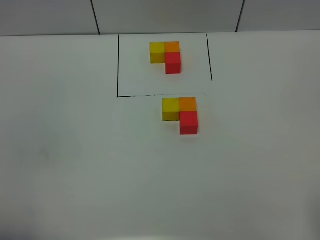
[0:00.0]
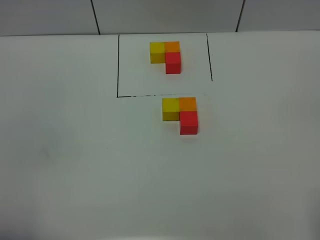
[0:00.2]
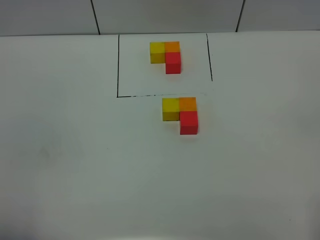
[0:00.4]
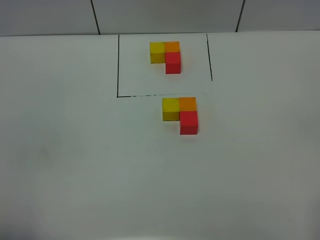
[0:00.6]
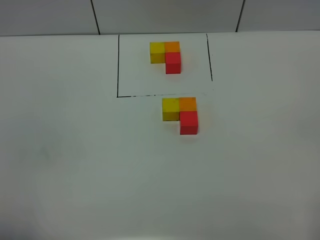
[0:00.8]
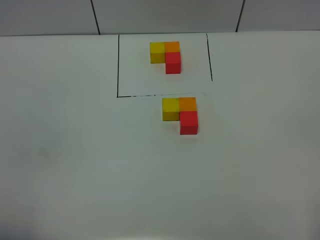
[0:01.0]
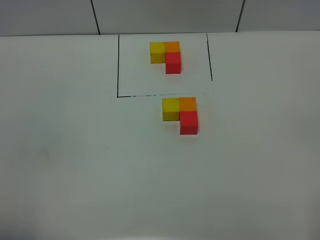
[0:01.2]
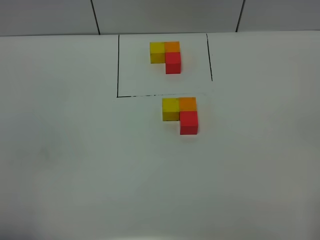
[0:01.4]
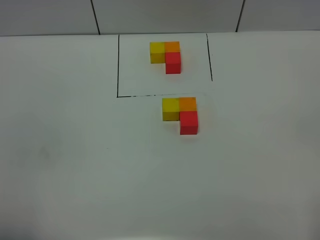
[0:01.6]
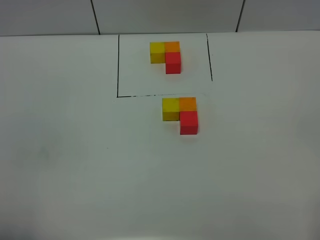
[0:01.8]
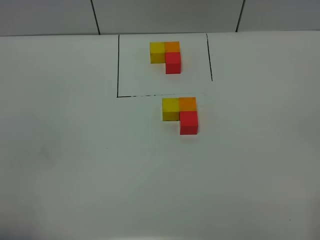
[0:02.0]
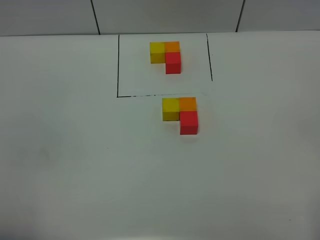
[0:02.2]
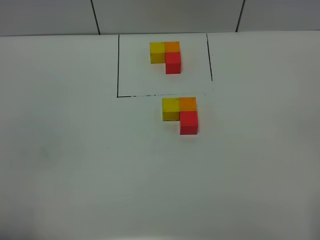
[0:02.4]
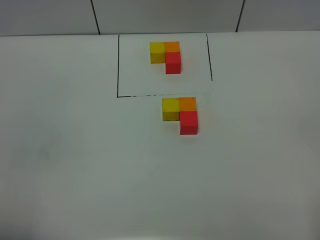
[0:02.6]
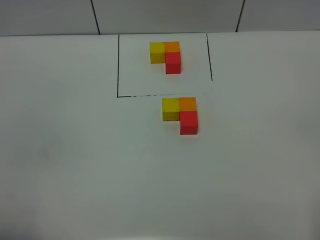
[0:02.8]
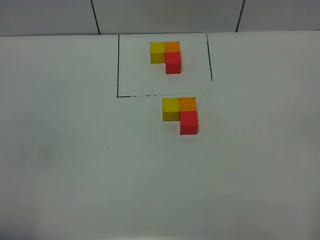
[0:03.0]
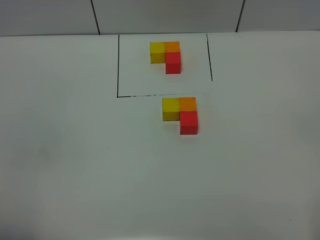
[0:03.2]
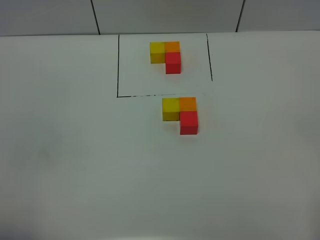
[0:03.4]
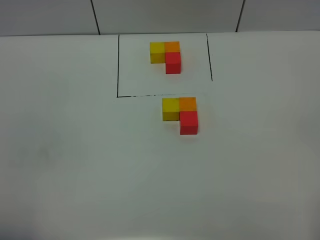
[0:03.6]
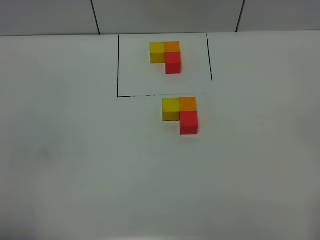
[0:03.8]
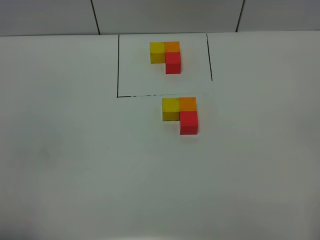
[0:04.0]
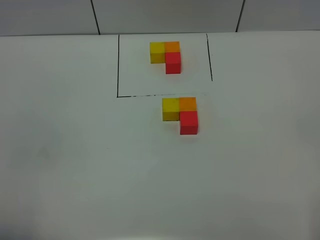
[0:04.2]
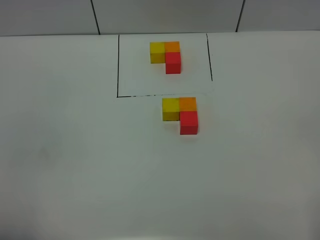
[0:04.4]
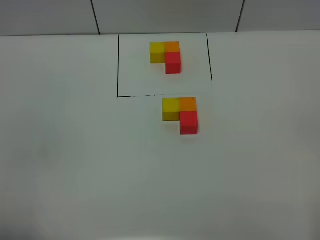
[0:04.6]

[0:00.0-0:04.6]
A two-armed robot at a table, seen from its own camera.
Task of the whole recording: According to the building block template in front, assemble the scattered blocks together.
0:01.6 to 0:04.6: Both grippers stay put.

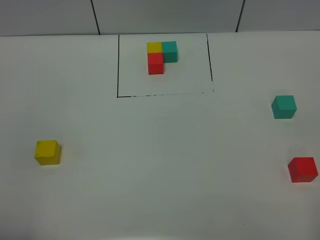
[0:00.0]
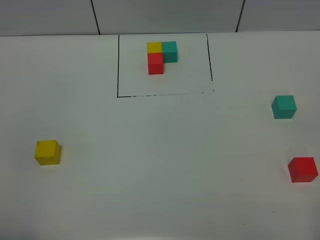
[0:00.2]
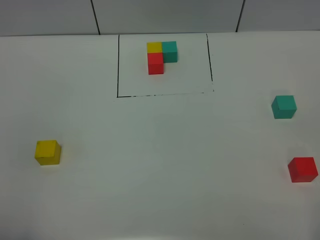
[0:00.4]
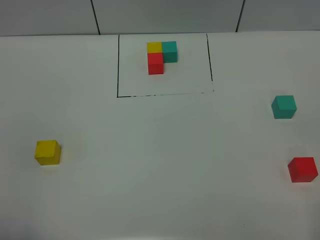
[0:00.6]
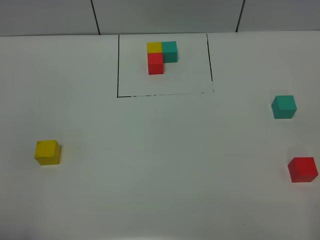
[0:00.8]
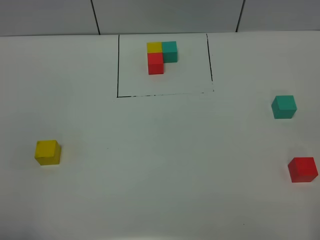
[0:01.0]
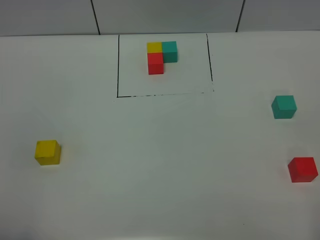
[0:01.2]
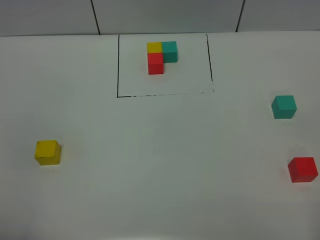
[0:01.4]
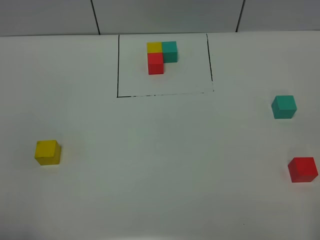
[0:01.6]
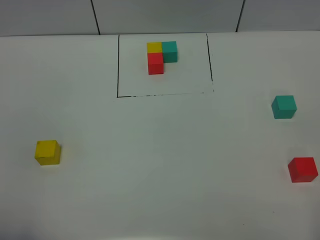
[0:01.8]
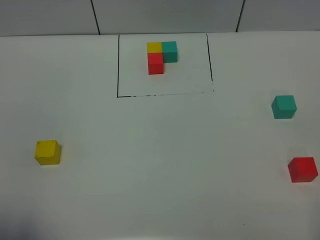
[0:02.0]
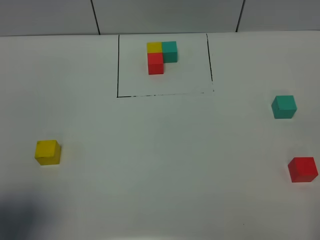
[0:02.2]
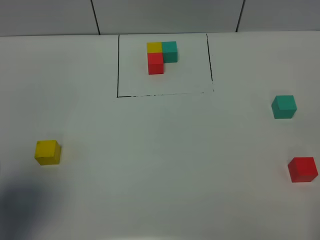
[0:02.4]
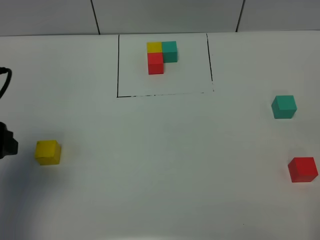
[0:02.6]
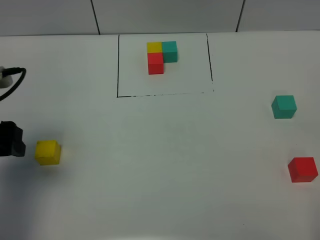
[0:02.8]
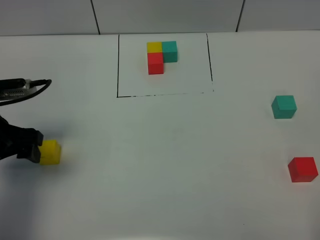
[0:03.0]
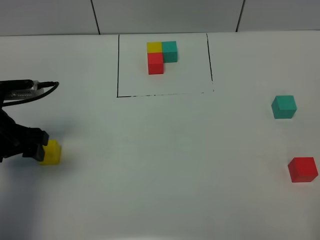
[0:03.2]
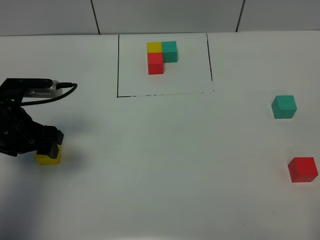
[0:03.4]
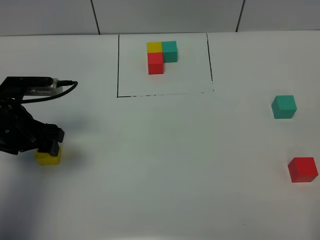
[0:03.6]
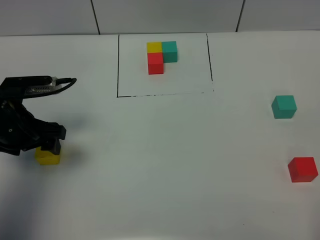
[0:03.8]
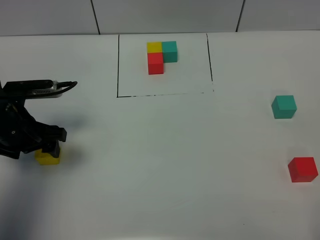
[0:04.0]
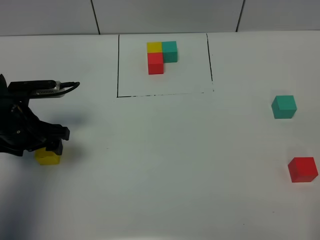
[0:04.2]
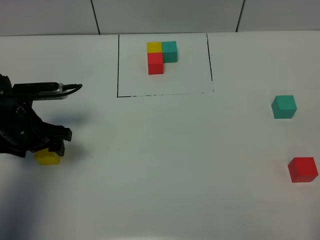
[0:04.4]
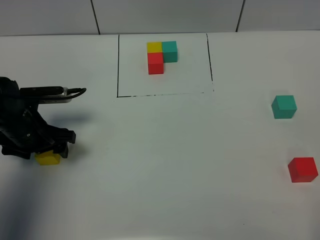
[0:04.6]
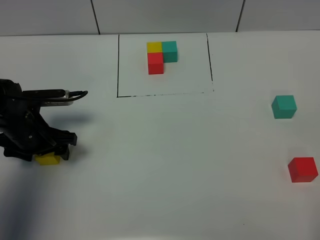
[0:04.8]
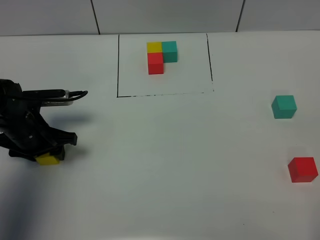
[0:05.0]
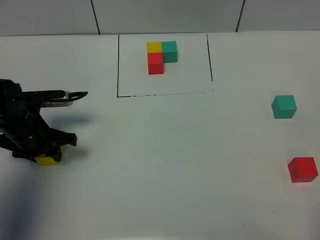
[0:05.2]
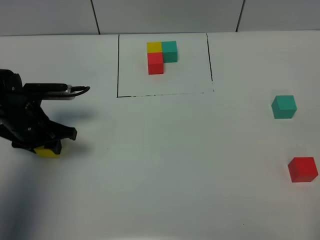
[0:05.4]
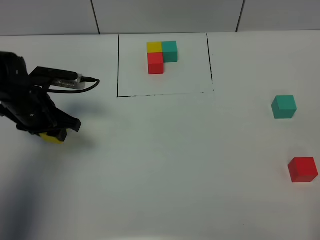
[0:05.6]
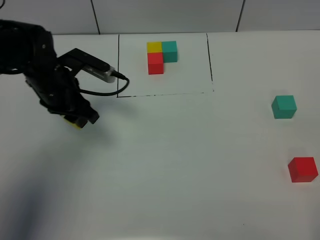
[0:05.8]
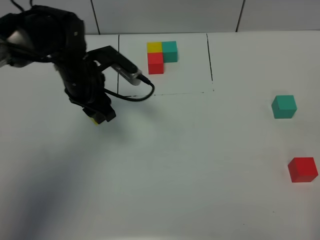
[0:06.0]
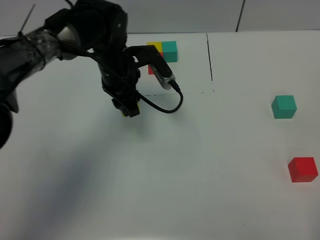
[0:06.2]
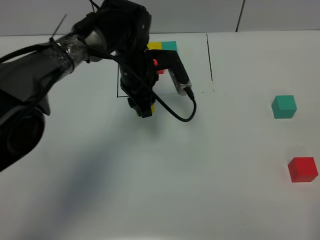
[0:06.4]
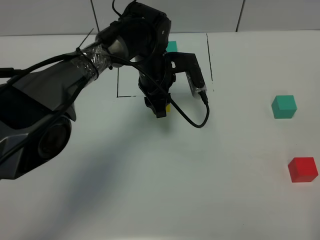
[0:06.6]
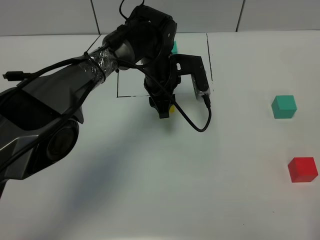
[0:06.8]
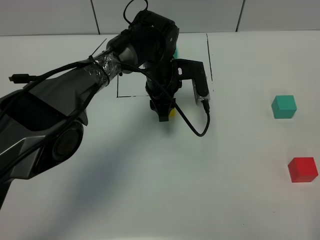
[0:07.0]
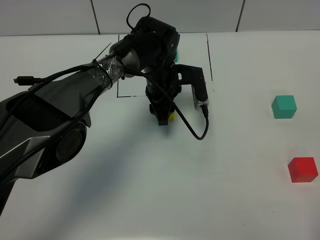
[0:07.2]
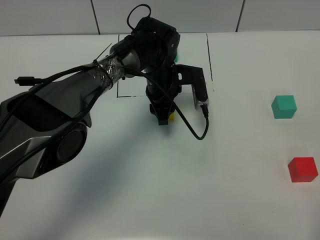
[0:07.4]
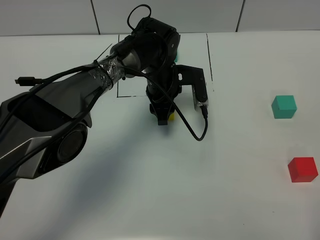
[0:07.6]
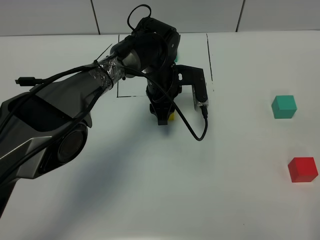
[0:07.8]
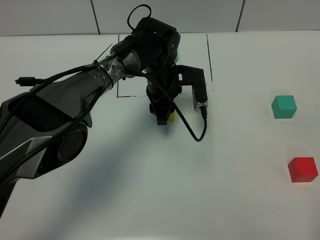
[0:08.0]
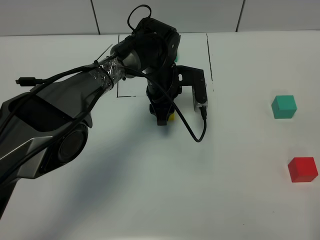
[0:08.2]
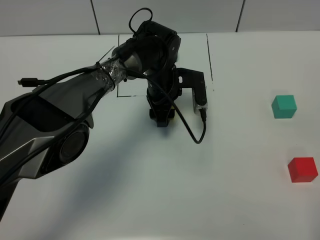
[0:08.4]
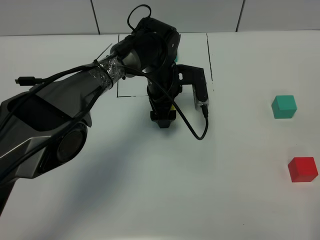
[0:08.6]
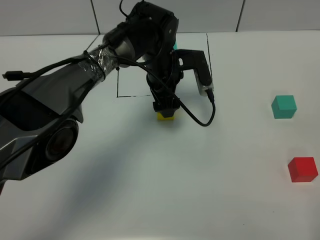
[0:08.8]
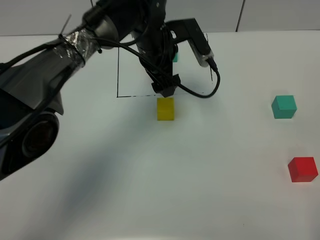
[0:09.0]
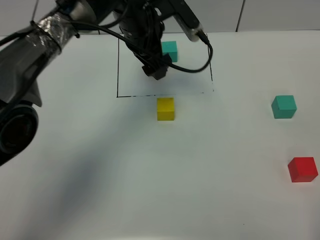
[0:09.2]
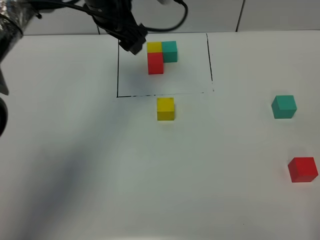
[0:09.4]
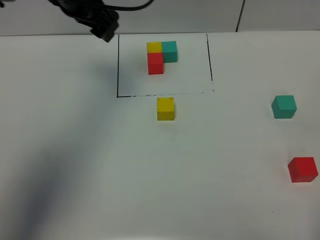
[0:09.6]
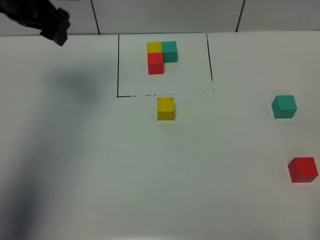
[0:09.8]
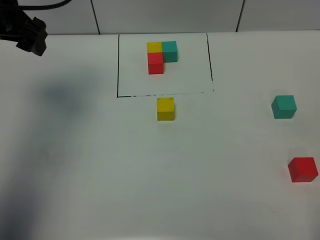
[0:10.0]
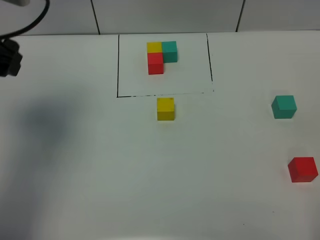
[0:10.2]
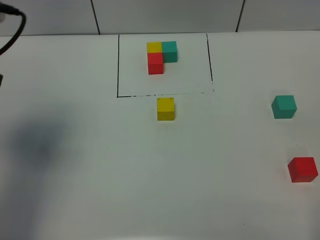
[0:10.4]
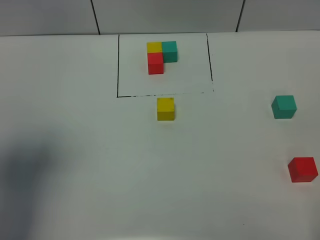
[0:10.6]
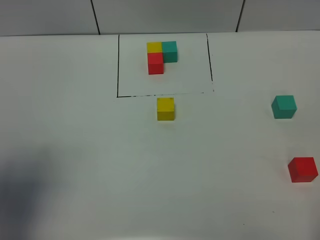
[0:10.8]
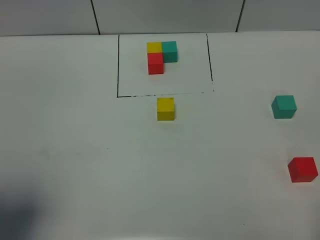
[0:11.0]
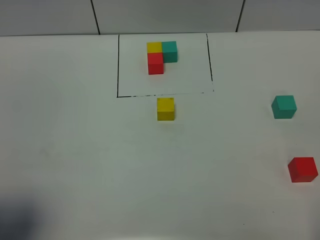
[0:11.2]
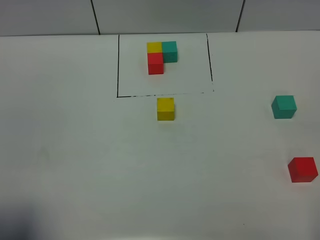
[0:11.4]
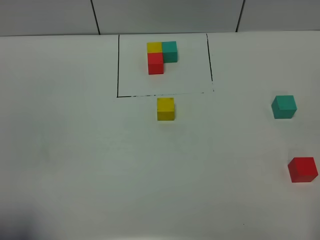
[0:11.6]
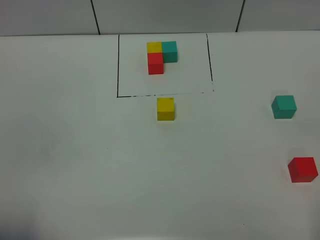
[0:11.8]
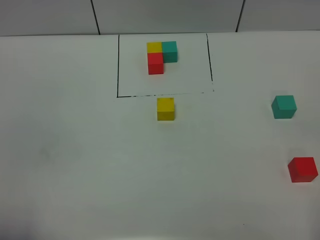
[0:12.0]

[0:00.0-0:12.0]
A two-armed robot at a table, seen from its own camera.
Task of the whole recording: According to the building block template in front, assemble the scattered blocks together.
Step, 0:00.0 to 0:08.2: Put the yellow build block in the center of the table.
0:00.0 to 0:01.6: Both grippers stay put.
0:01.6 to 0:03.0: The left gripper travels forward by about 25 cm.
0:03.0 to 0:04.4: The left gripper travels downward by roughly 5 cm.
0:04.4 to 0:06.0: The left gripper heads to the right and forward, covering approximately 15 cm, and closes its fingers.
0:06.0 to 0:07.6: The left gripper travels to the right and downward by some 15 cm.
0:07.6 to 0:09.0: The left gripper heads upward, covering roughly 10 cm, and opens its fingers.
0:09.0 to 0:10.4: The left gripper moves to the left, backward and upward, approximately 35 cm.
0:10.4 to 0:12.0: The left gripper goes roughly 25 cm backward.

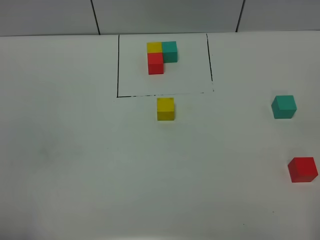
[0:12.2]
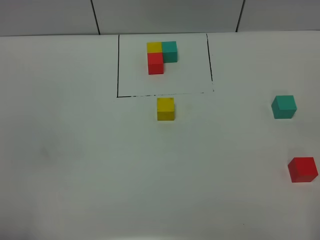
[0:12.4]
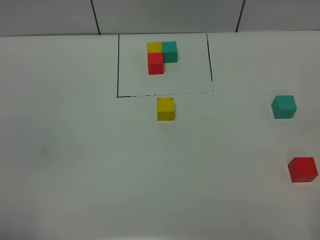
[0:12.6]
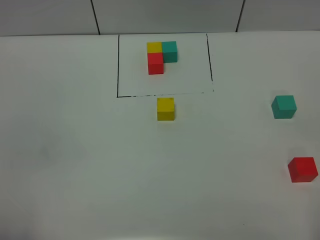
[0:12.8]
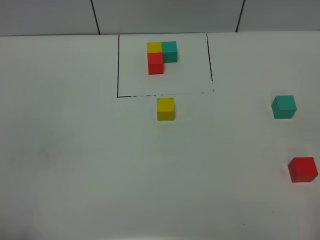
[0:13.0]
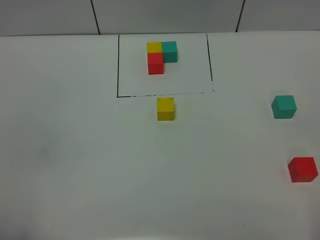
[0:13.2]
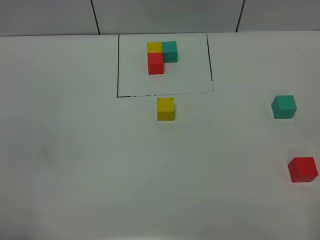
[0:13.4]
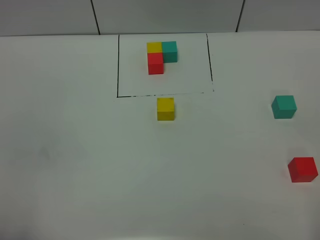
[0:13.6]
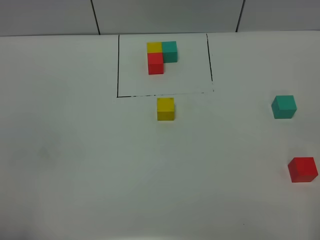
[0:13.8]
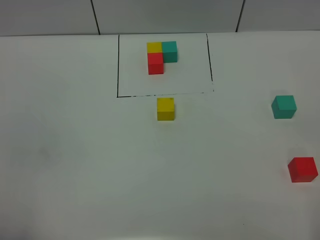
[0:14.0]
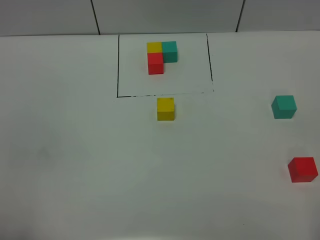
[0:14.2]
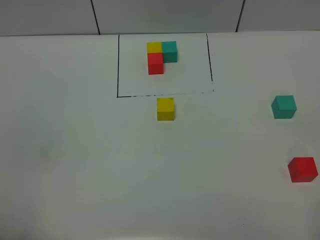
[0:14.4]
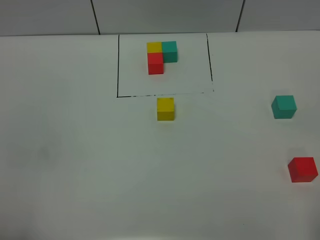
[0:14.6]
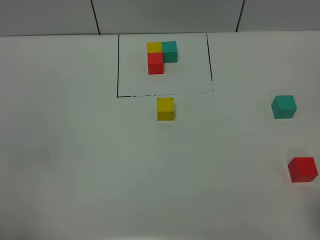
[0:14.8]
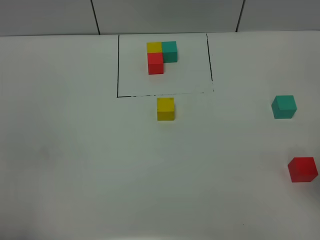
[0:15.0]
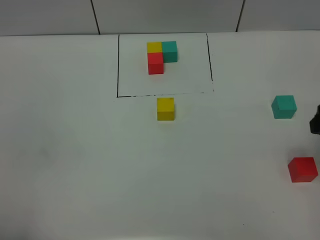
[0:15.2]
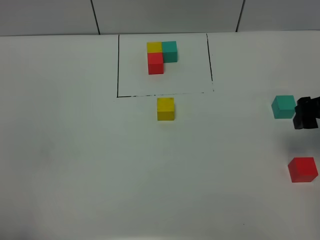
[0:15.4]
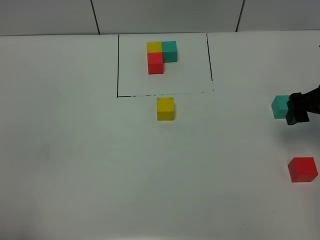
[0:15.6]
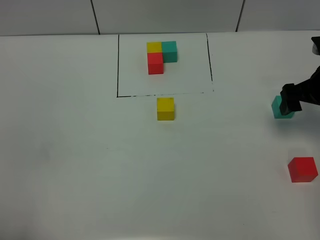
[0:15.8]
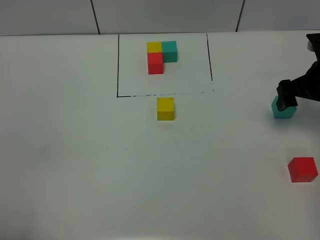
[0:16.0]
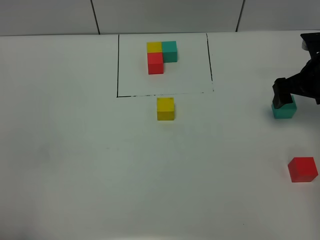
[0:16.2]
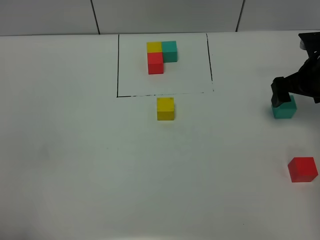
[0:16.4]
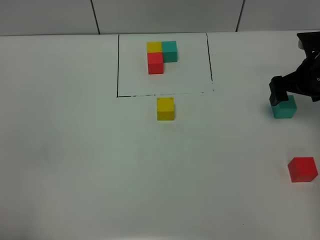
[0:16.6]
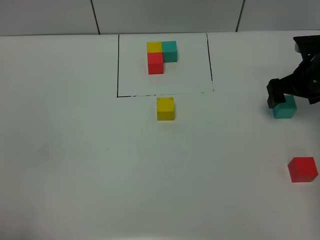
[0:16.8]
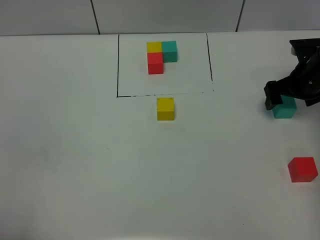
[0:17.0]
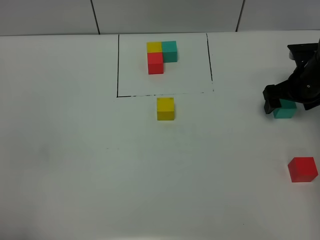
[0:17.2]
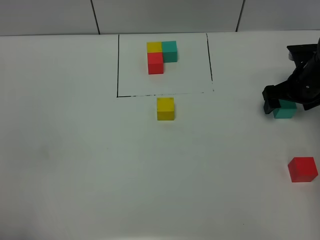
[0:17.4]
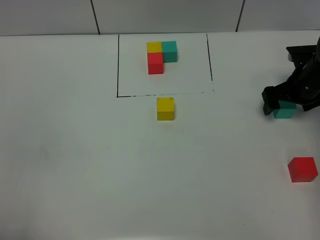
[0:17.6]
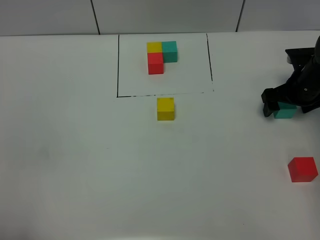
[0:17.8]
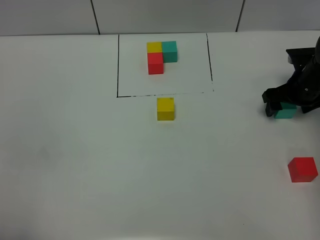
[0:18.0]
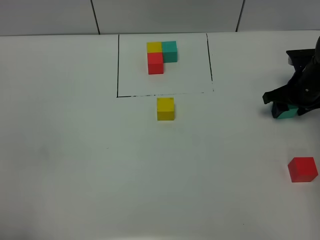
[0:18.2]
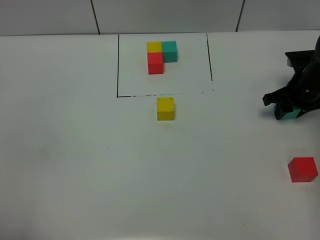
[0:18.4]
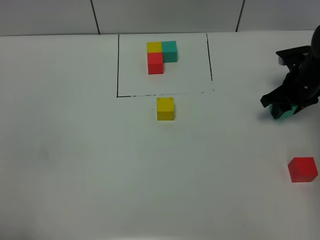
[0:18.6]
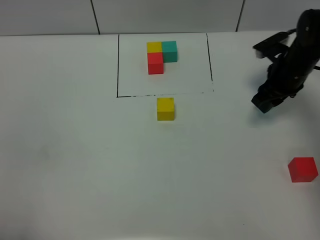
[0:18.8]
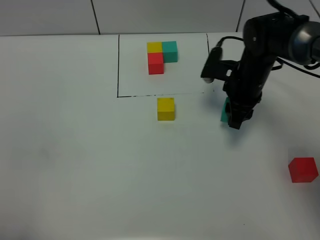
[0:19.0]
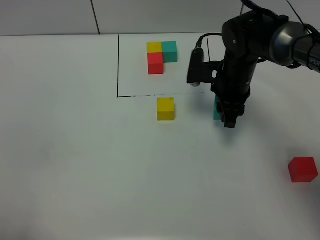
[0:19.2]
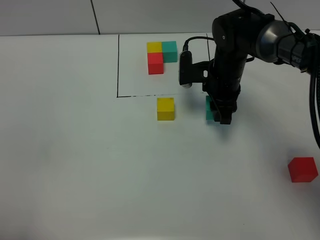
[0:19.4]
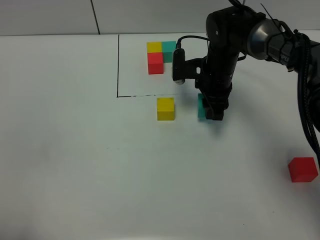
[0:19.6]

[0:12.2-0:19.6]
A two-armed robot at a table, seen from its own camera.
Task of the whole recording: According to the building block template in front, assemble the scattered blocks together.
0:12.2 to 0:13.6: The two grippers keep their place.
0:13.6 to 0:15.2: The right gripper moves forward, roughly 20 cm.
0:15.2 to 0:16.6: The right gripper moves forward and downward, about 20 cm.
0:16.6 to 0:18.2: The right gripper shifts approximately 5 cm downward, and closes up.
0:18.2 to 0:19.6: The right gripper travels to the left by roughly 20 cm.
